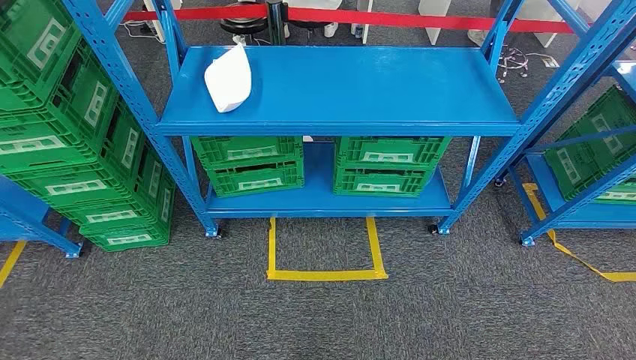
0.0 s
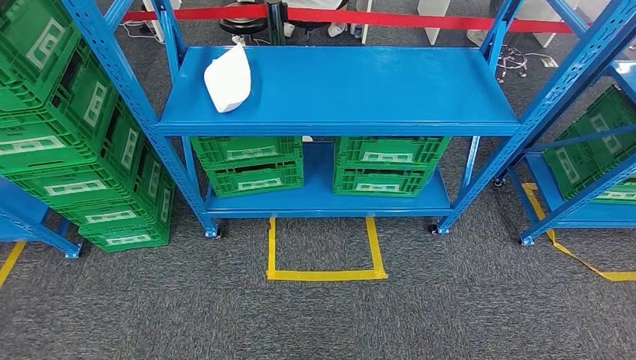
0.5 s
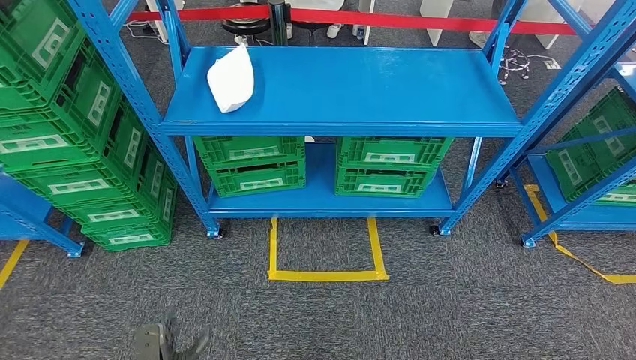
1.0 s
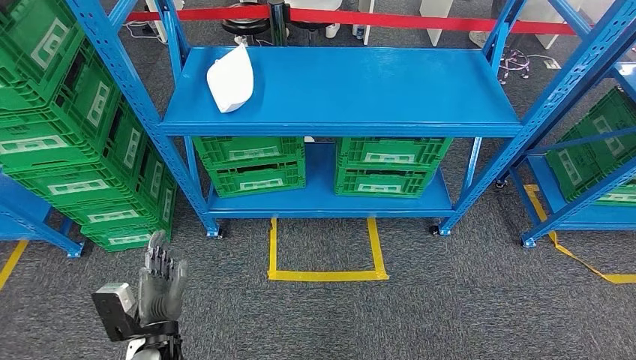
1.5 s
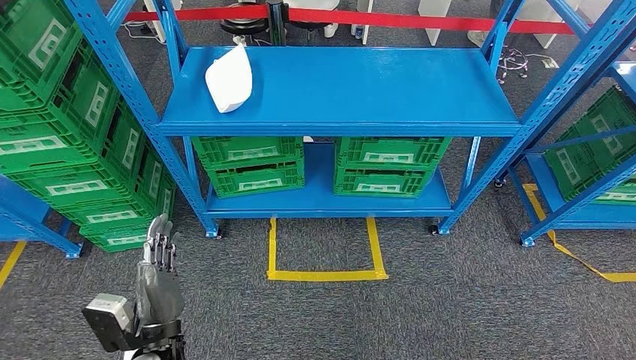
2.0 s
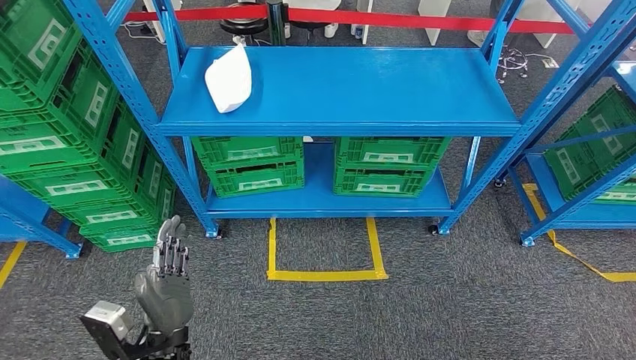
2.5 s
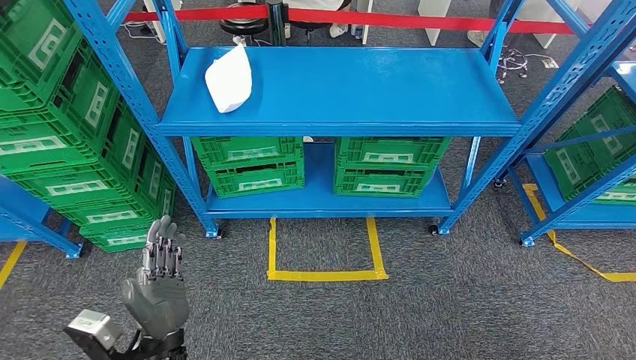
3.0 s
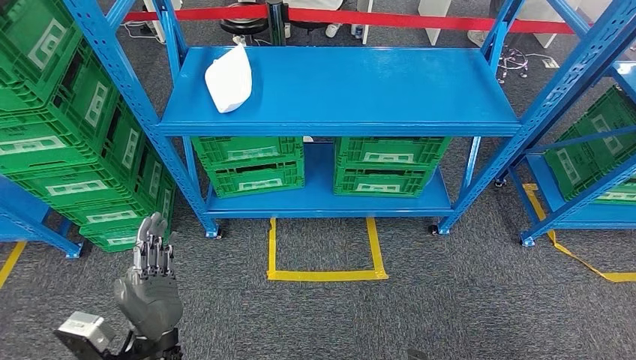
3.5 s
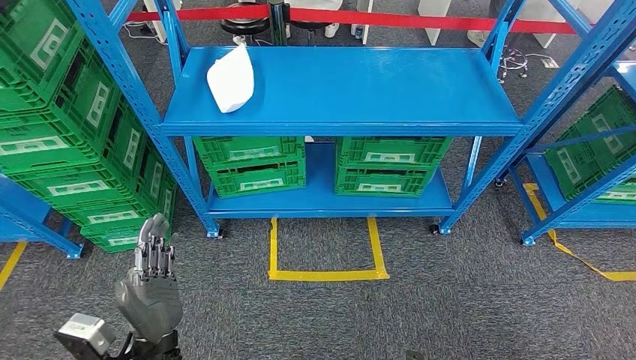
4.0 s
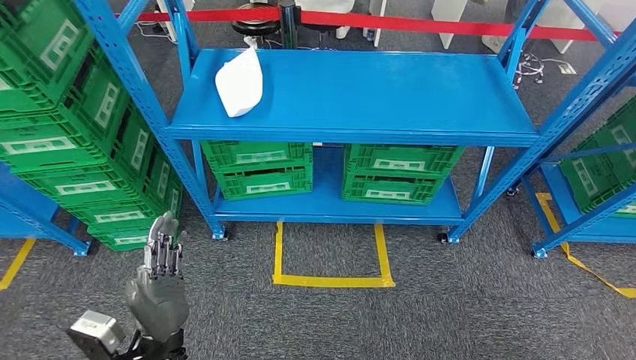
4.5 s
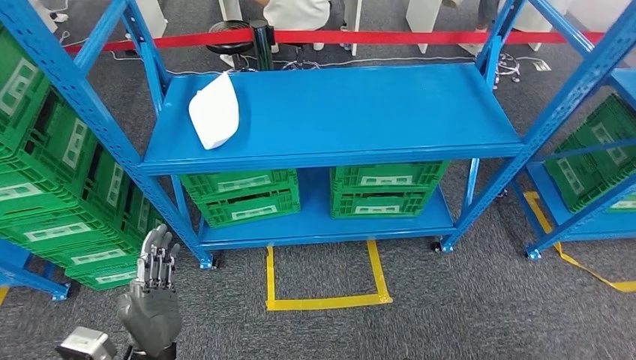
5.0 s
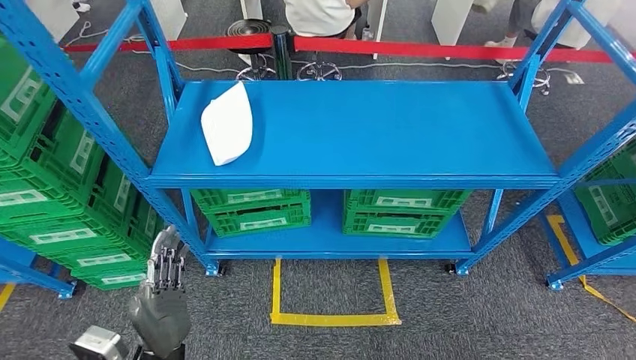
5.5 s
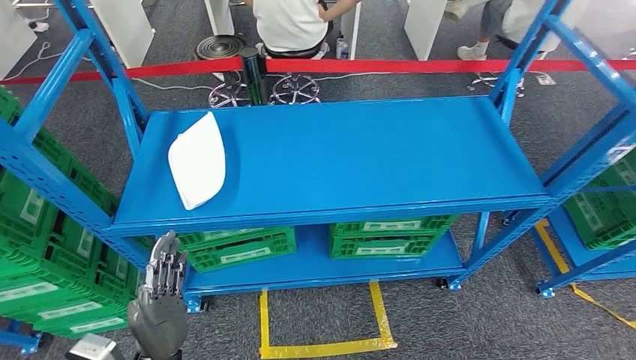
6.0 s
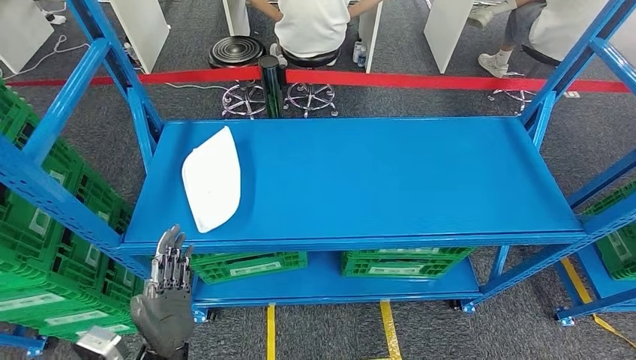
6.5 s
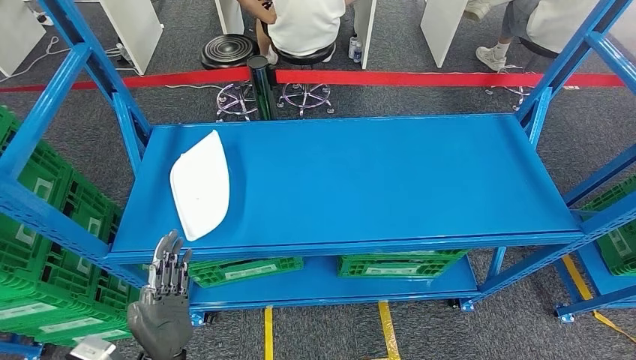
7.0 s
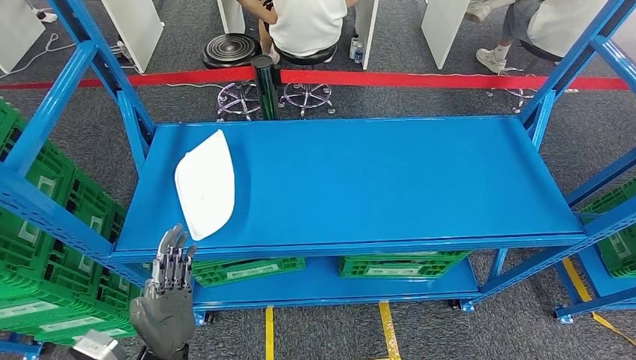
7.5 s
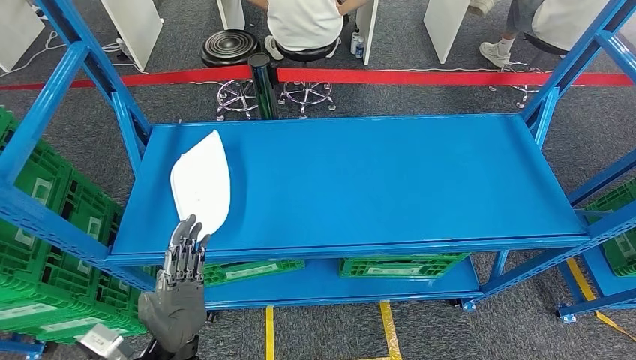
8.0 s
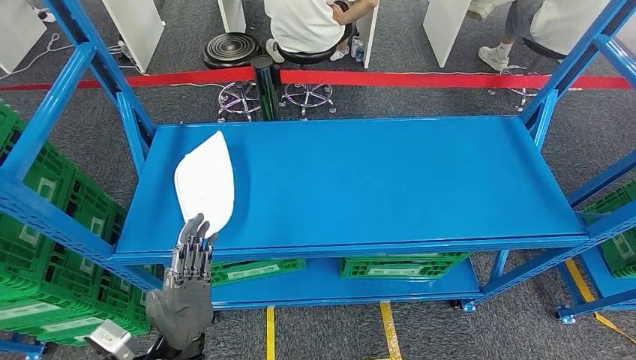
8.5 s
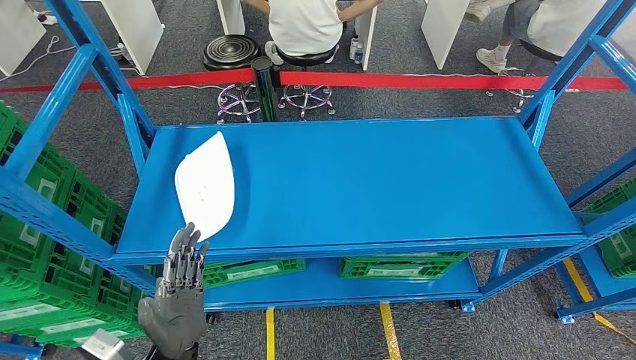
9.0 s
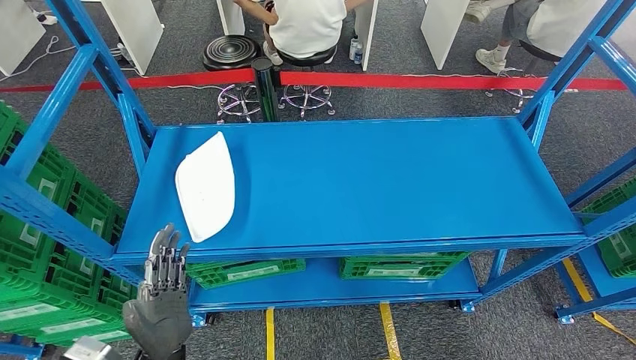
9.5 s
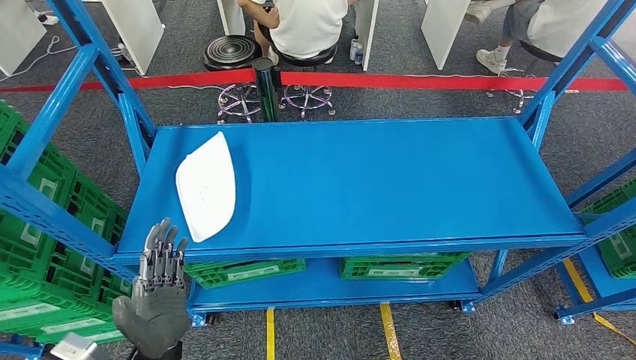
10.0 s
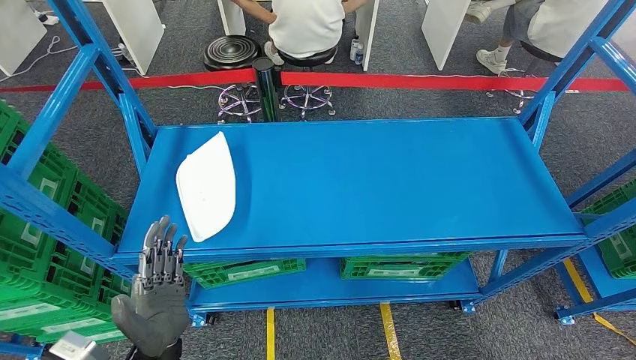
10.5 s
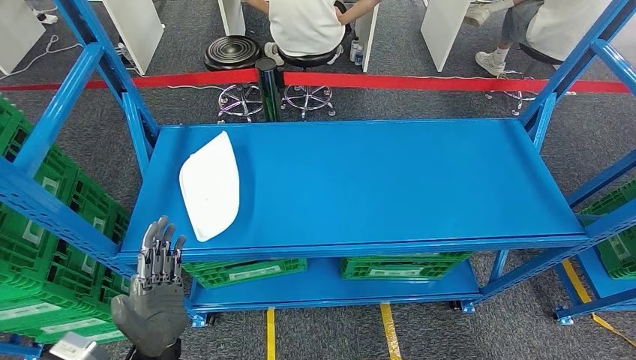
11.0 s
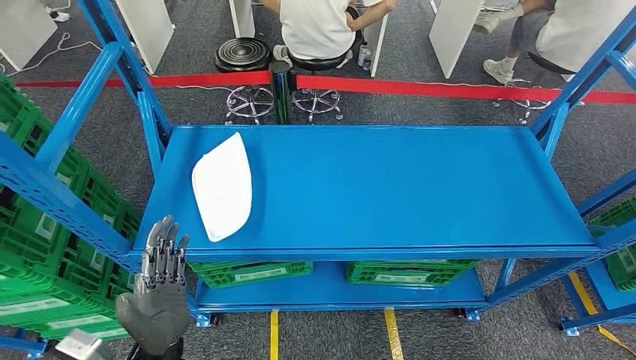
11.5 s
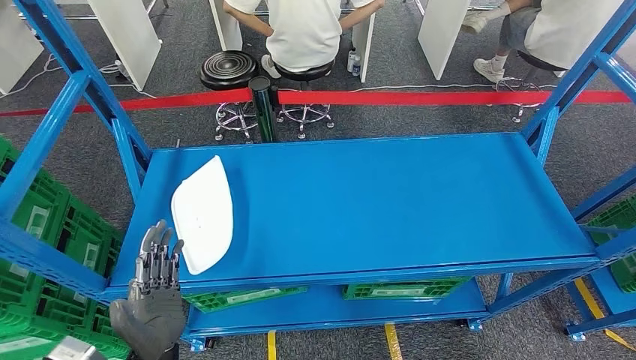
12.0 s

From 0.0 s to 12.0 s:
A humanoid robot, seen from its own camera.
From 2.0 s to 4.0 s: The hands move only a little.
From 8.0 s to 10.0 s: The hands stay close to where they were, moving slightly.

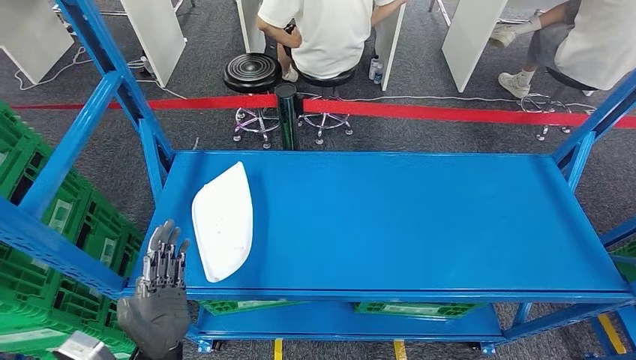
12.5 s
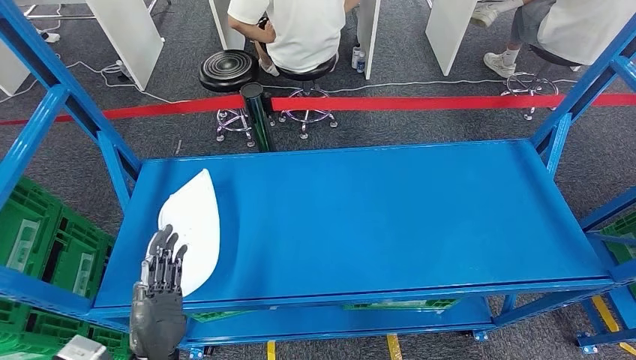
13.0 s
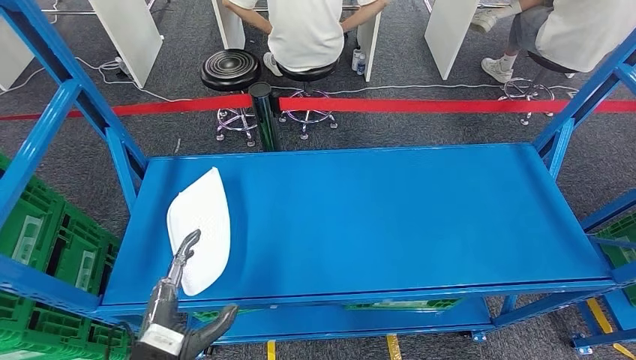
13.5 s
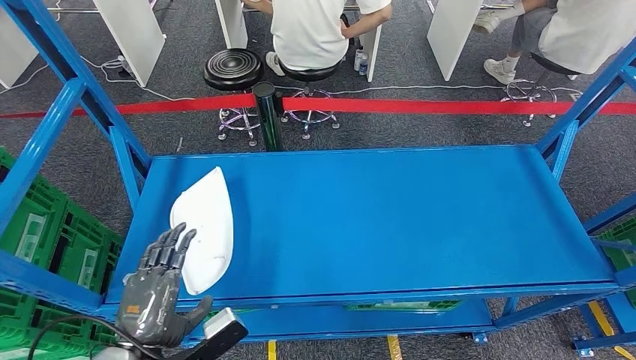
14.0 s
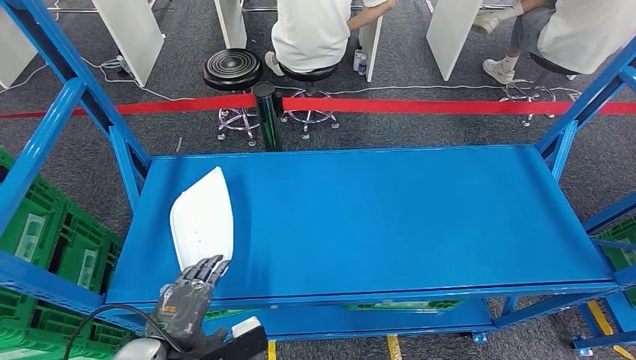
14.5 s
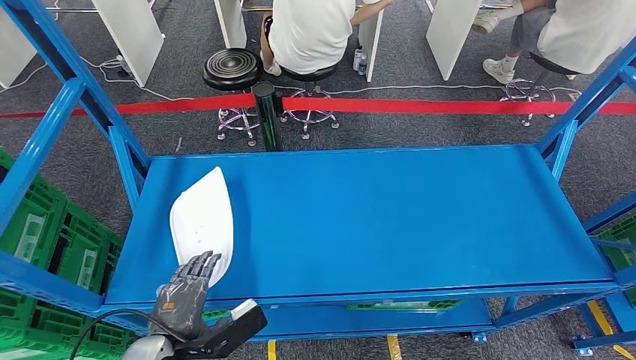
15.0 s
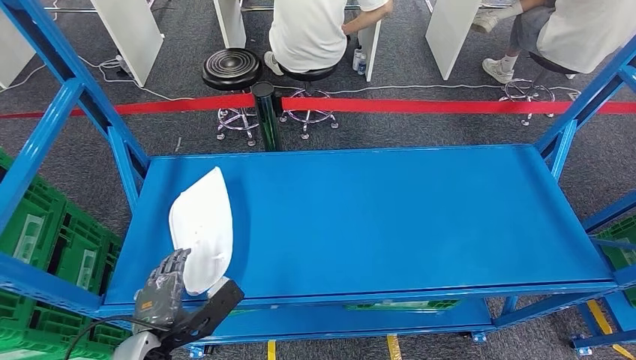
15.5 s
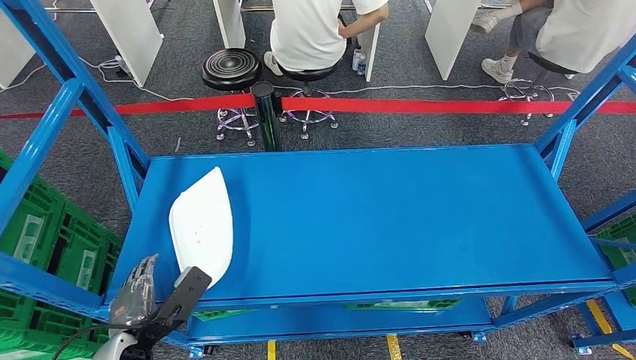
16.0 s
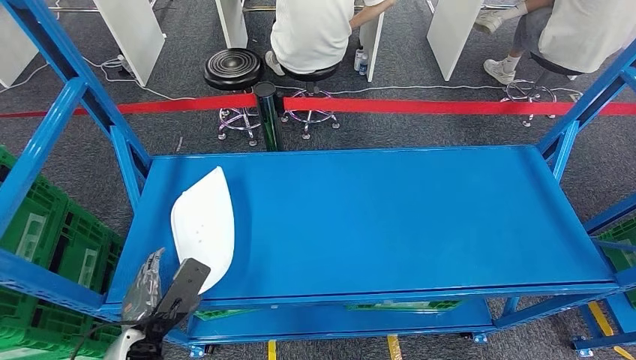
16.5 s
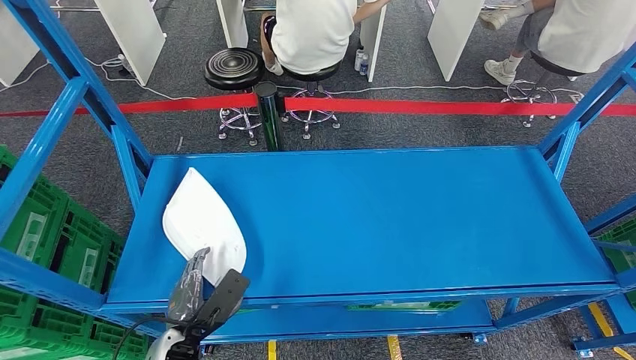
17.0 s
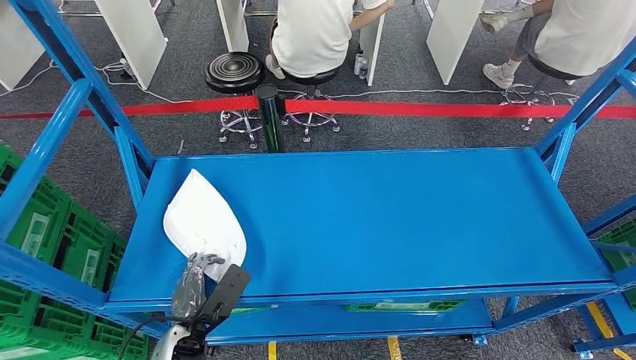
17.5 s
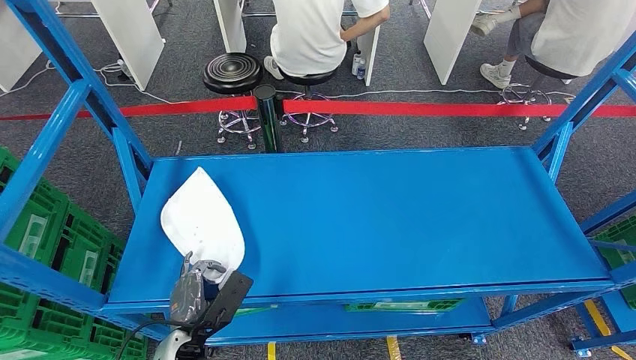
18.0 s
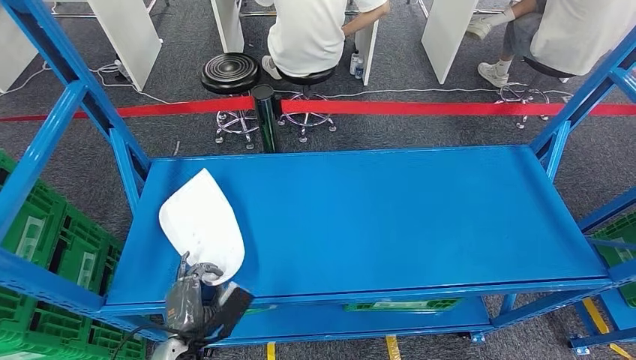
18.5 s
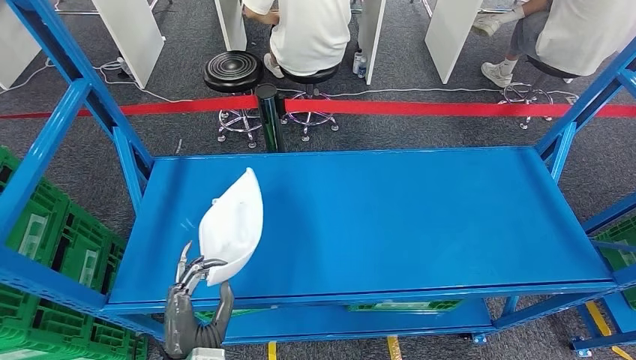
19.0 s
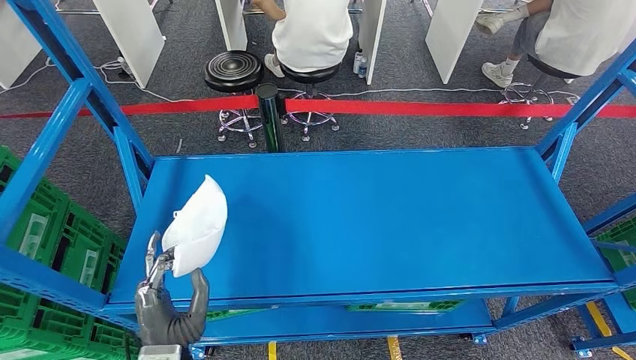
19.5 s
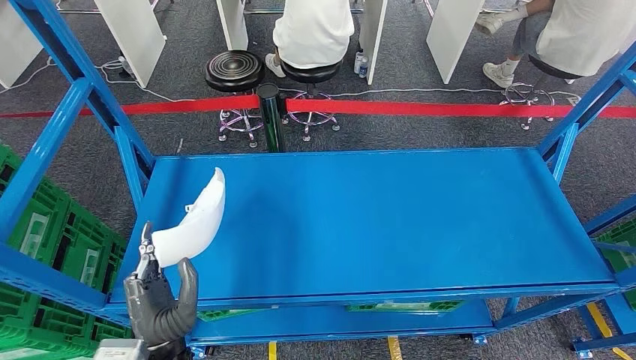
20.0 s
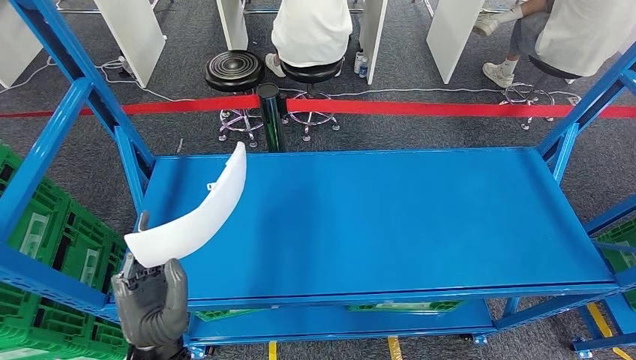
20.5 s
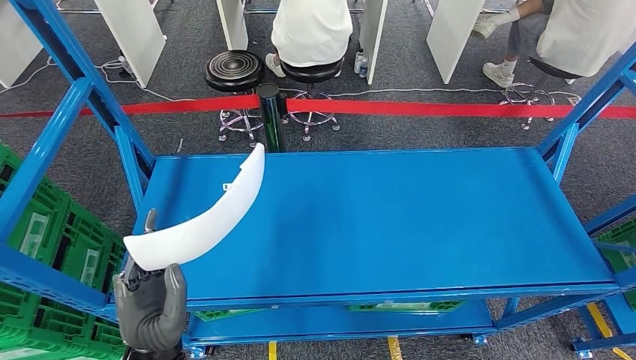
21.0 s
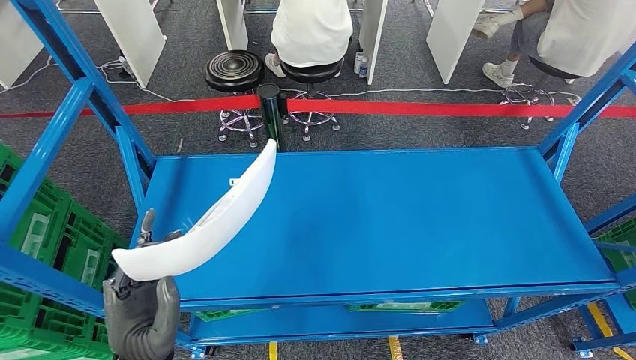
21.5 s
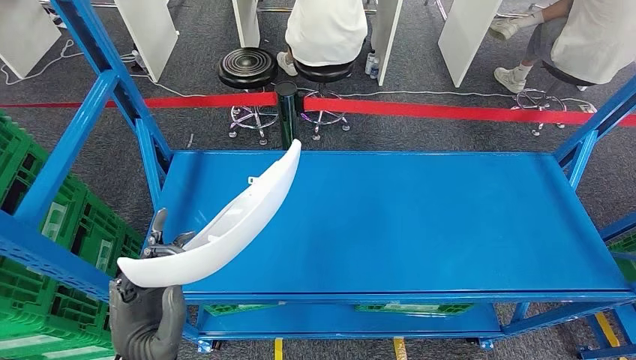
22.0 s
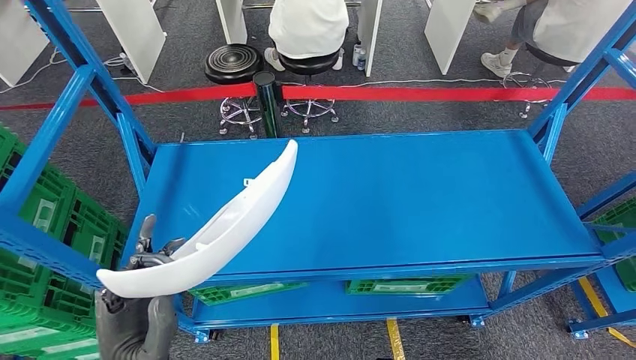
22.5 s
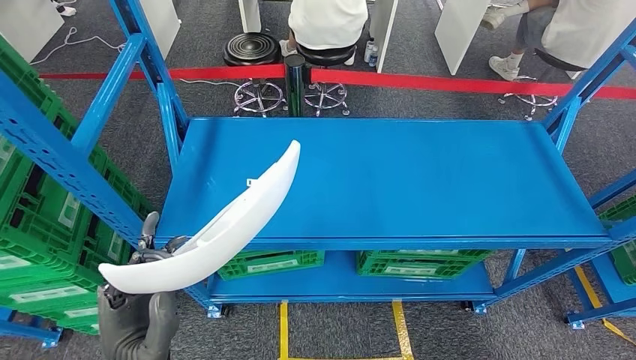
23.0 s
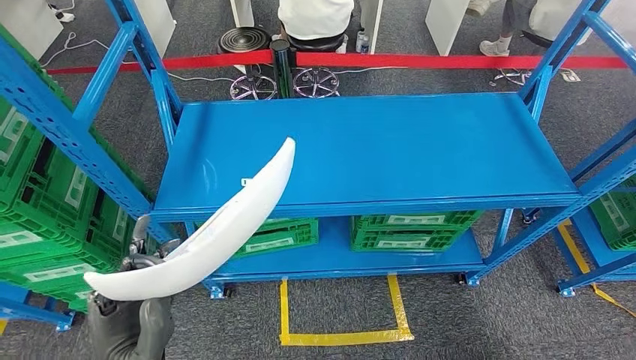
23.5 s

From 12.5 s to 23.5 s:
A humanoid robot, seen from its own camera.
Step, from 12.5 s to 21.0 s: Pick up the small parts from the shelf.
From 14.5 s to 16.0 s: The left hand goes about 5 cm downward.
From 16.0 s to 18.0 s: The left hand travels to the right and downward by some 10 cm.
From 18.0 s to 20.0 s: The left hand is displaced upward by some 5 cm.
